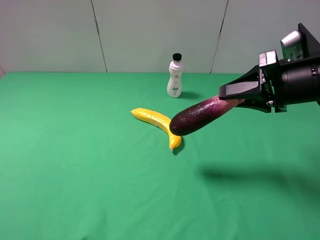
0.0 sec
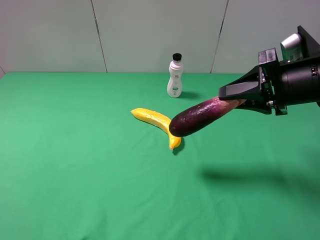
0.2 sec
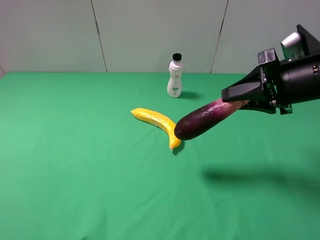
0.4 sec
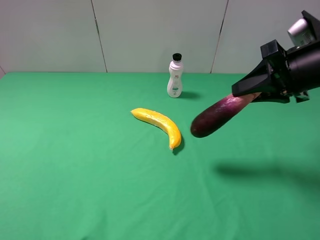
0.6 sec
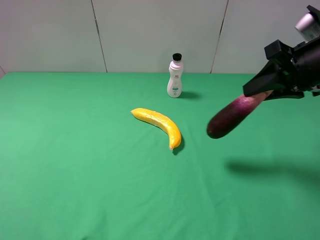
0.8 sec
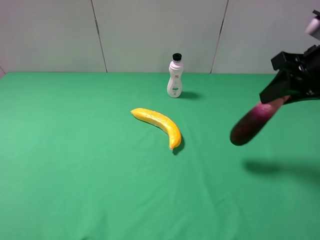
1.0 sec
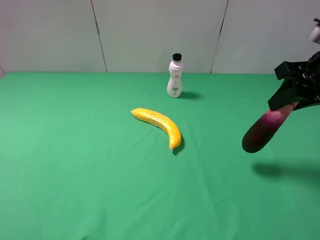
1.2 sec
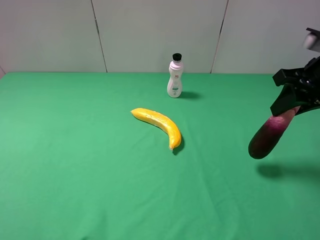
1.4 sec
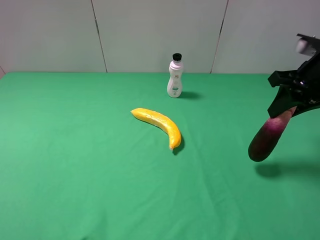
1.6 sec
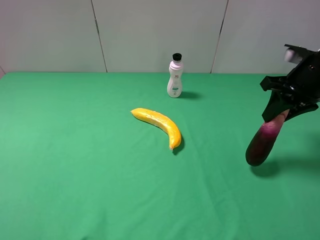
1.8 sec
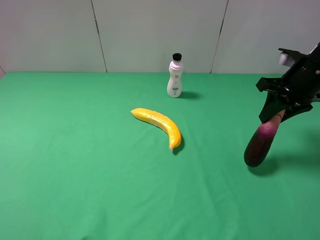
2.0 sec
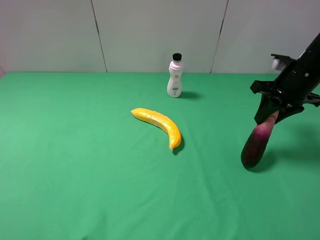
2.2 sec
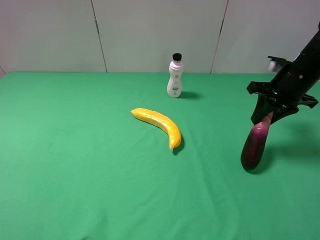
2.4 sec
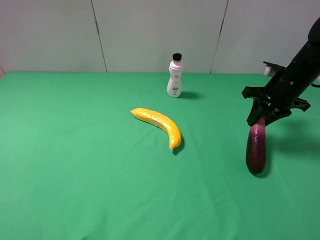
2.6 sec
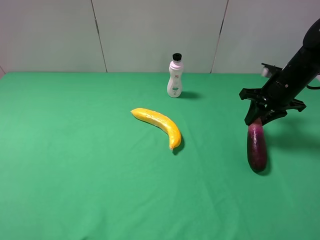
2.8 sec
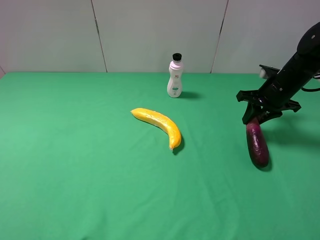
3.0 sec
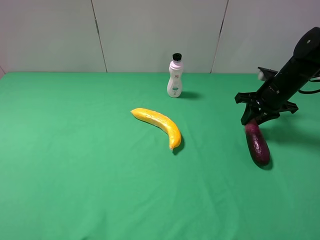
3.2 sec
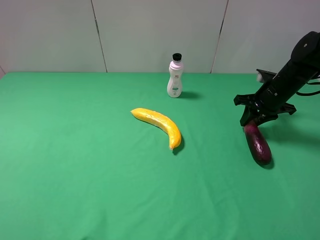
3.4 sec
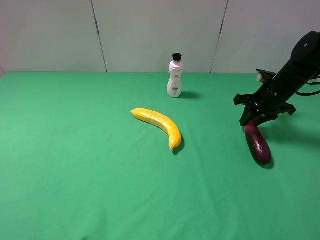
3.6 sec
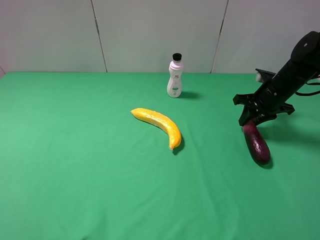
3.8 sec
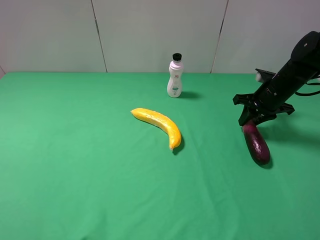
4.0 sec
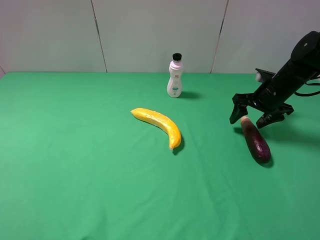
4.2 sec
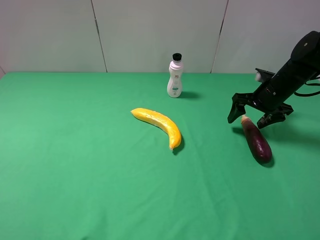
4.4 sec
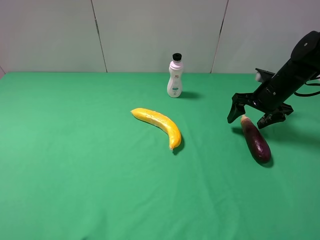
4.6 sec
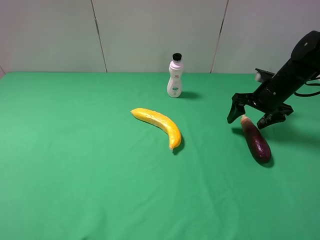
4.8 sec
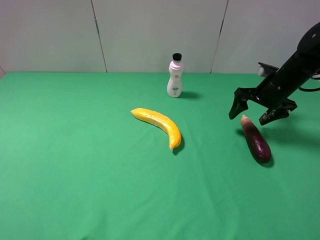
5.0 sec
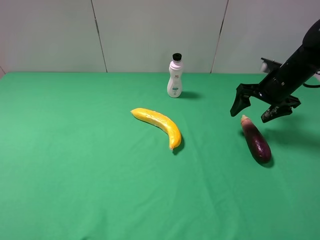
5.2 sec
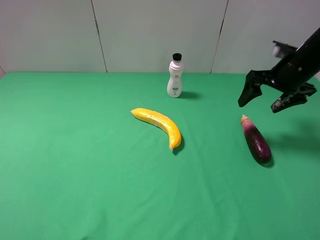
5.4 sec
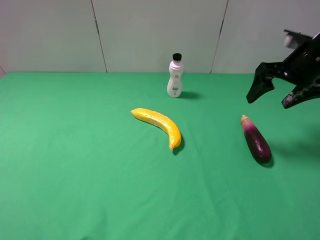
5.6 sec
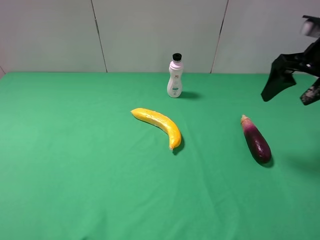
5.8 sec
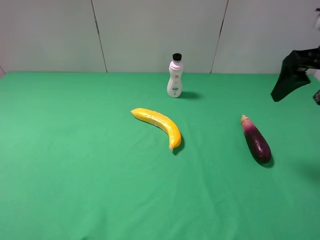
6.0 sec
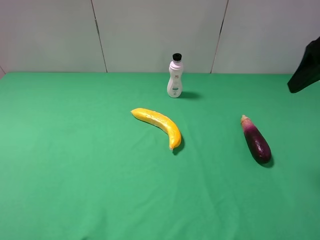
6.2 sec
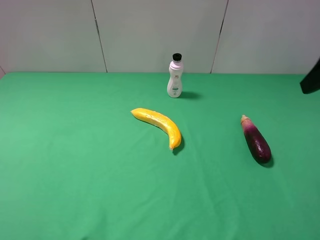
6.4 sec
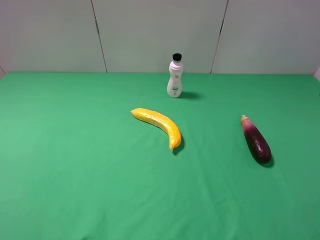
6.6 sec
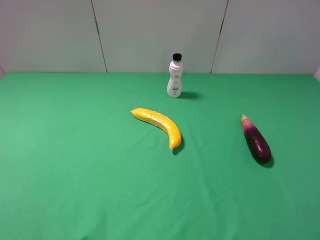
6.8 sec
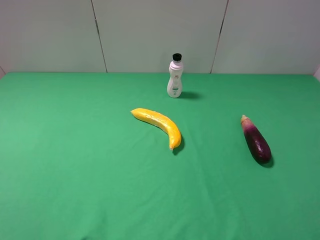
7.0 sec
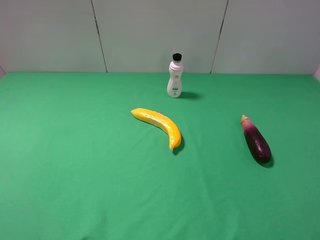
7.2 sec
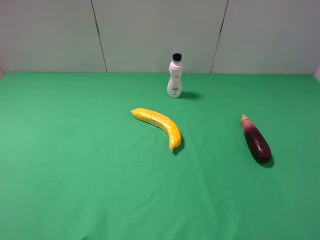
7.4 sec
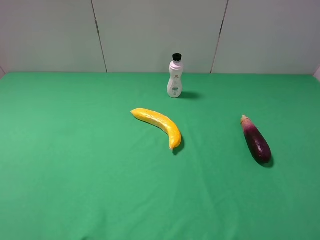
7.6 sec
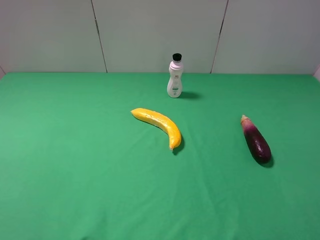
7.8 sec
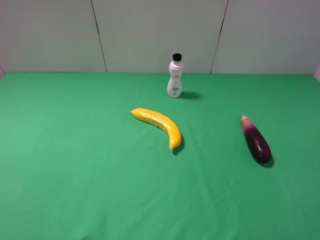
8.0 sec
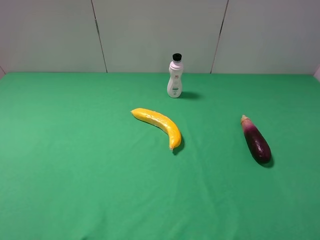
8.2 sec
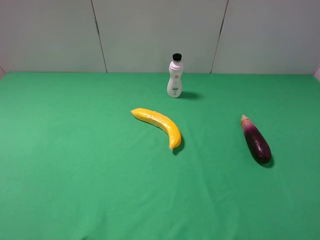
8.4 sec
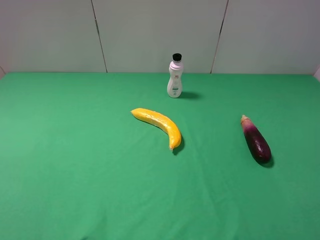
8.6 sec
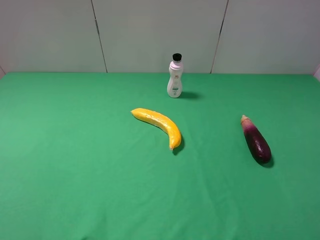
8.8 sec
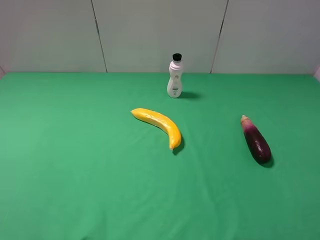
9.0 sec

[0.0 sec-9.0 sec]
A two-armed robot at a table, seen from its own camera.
Task of the whole recording: use the left gripper to pick up the item and transfer it from the left gripper to the right gripper.
Step, 0.0 sec to 5.0 sec: The right gripper places eggplant on the right side of the table.
0.0 sec to 1.6 sec: The right gripper changes place by about 5 cm.
1.6 sec to 3.0 sec: The right gripper heads downward and forward, covering about 15 cm.
3.0 sec to 4.4 sec: The right gripper opens its fingers.
4.4 sec to 6.0 sec: The right gripper is displaced upward and backward by about 20 cm.
6.0 sec to 7.6 sec: The right gripper travels backward by some 25 cm.
